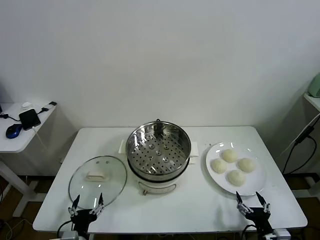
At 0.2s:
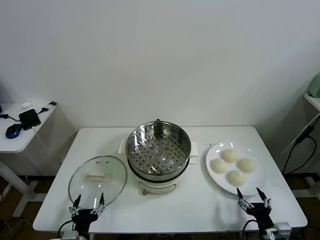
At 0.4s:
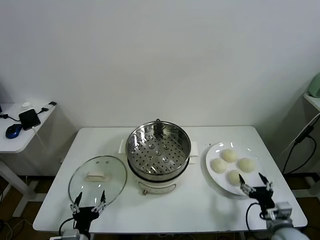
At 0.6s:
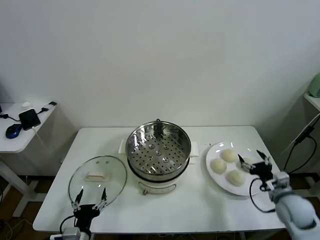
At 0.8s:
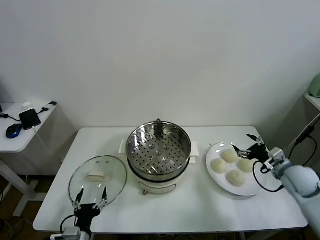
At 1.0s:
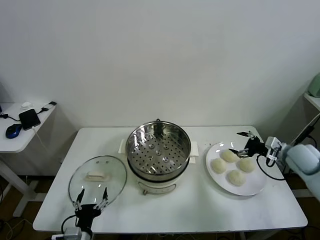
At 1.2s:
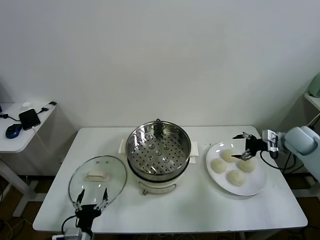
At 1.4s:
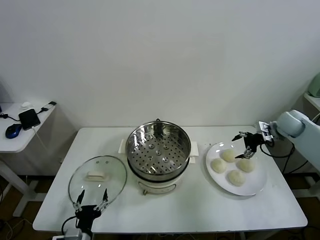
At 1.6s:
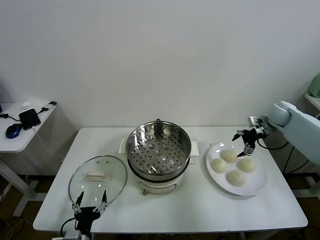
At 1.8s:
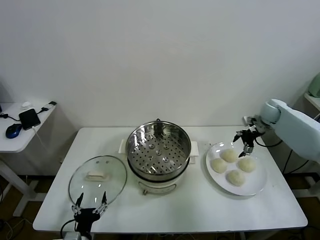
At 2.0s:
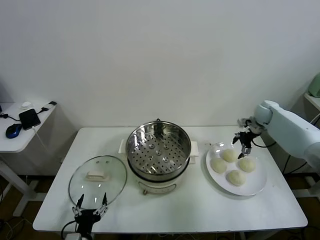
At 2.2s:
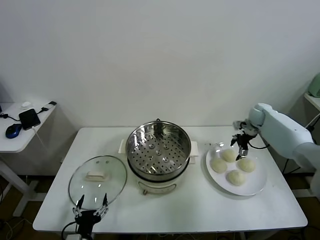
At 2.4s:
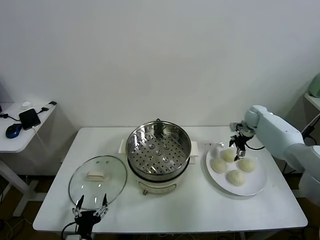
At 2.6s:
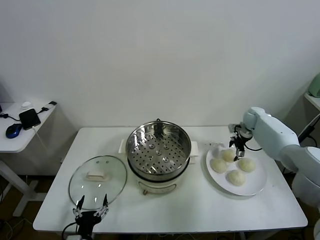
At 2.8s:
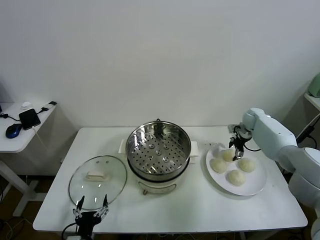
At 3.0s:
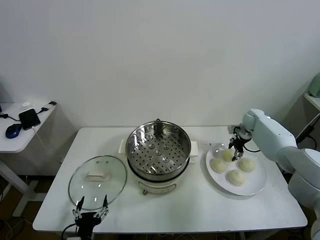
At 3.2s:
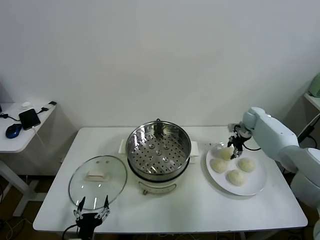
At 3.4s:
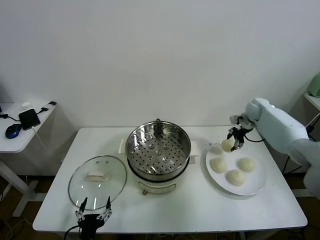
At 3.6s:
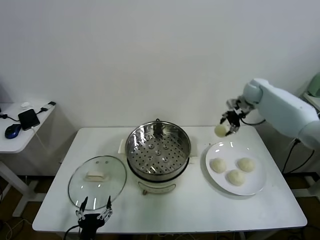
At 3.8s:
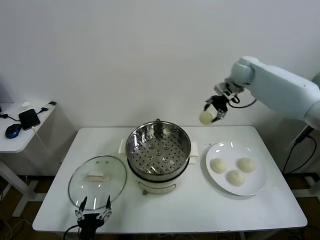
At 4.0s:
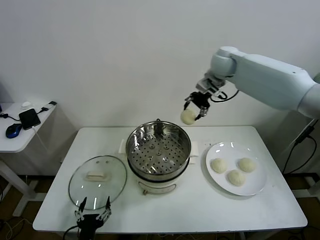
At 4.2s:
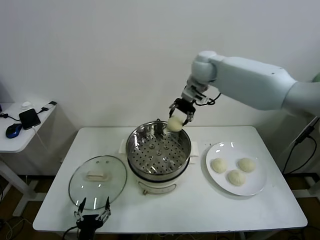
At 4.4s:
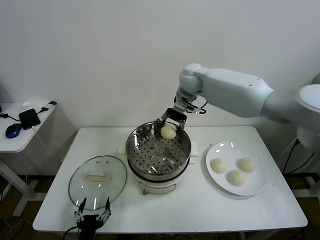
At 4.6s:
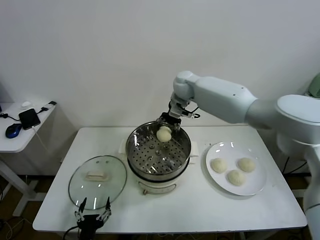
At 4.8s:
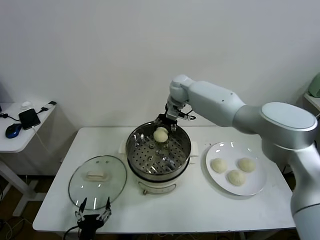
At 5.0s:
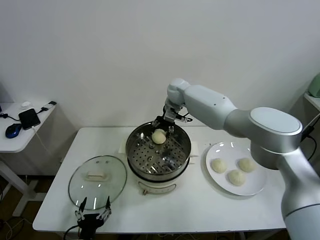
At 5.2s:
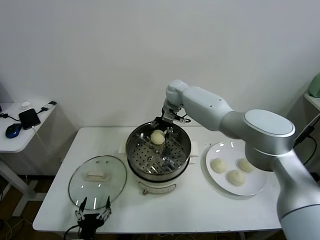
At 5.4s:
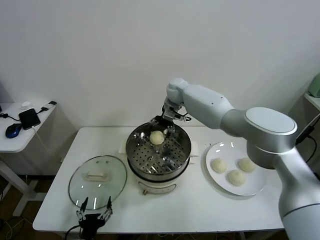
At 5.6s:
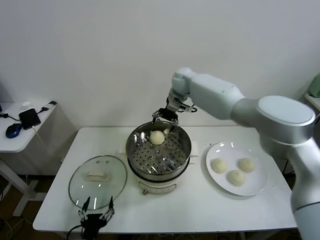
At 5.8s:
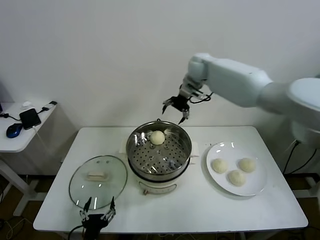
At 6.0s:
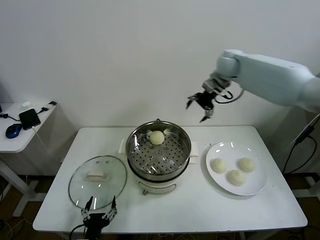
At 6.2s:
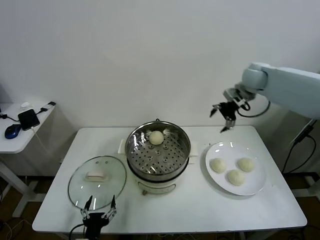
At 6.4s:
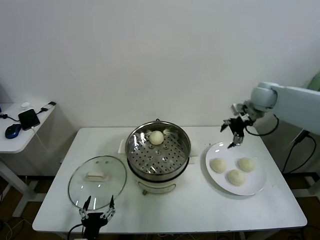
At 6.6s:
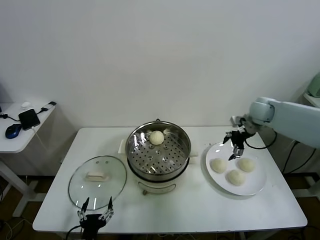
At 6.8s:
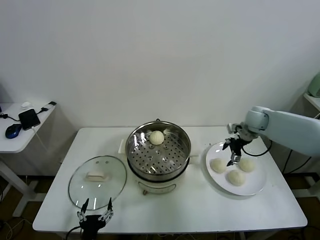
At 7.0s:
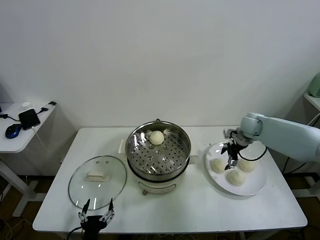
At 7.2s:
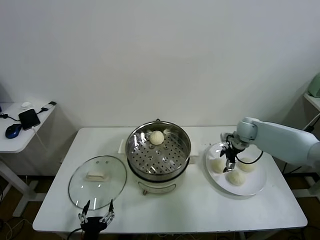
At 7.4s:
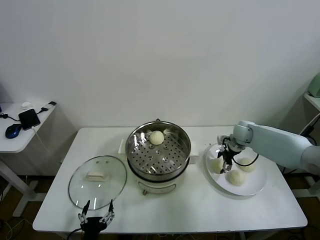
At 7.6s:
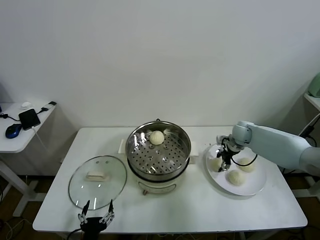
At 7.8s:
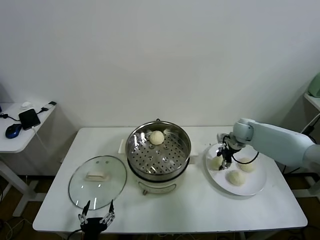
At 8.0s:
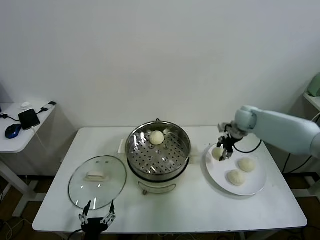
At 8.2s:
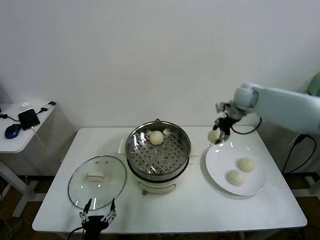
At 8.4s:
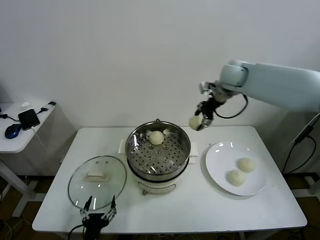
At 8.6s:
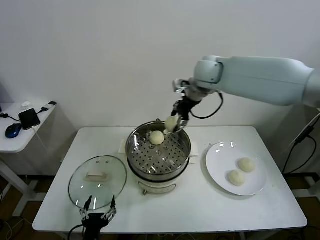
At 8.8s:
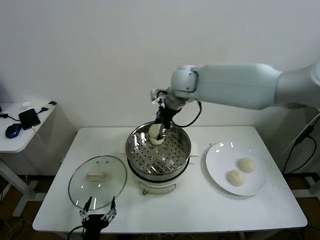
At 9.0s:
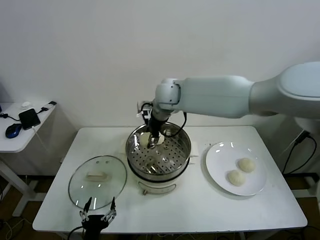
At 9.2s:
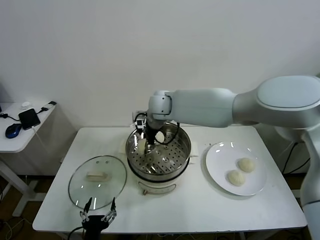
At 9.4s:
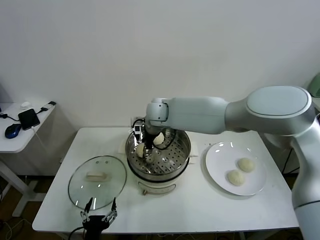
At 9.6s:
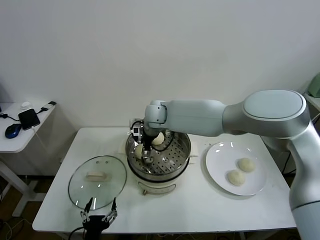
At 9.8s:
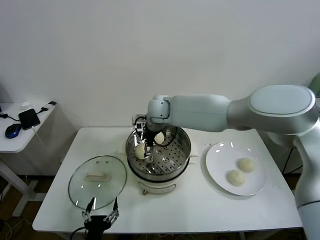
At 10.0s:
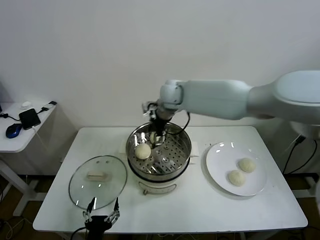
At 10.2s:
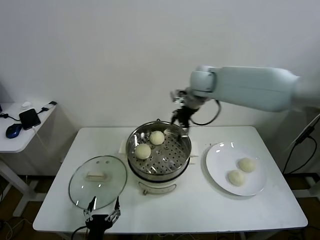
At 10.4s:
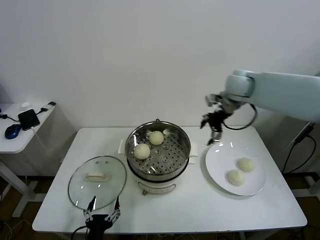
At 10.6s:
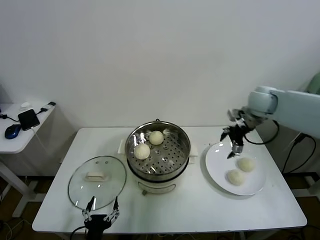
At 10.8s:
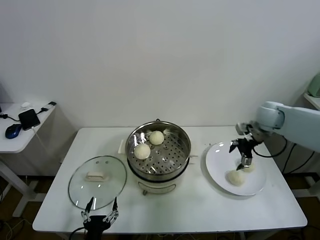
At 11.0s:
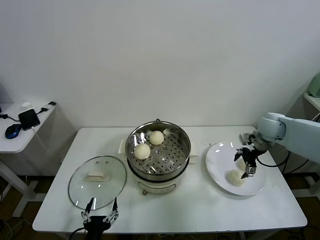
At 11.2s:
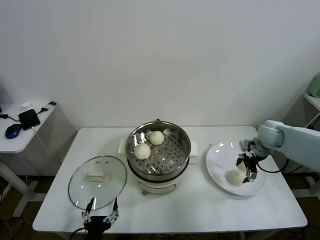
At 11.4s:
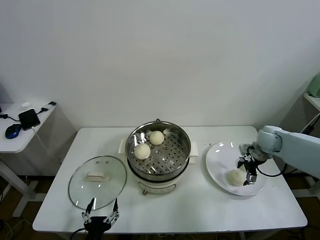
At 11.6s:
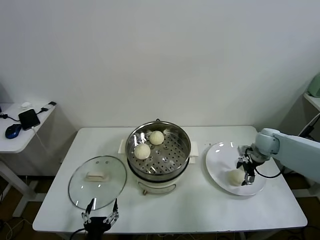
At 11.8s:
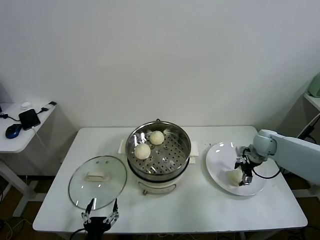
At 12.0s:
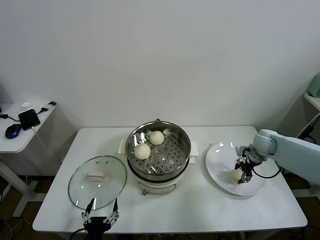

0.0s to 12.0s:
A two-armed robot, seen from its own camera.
Task of the whole recording: take steamed baozi put them in steamer.
Step, 0.0s to 3.0s: Grasp the baozi in the plate with right gripper.
Step, 3.2s to 5.4s: Place the baozi on the steamer with right gripper.
Step, 5.6s to 7.6s: Grasp the baozi in the plate with right gripper.
Step, 7.8s to 9.6s: Place the baozi on the steamer with right gripper.
Step, 9.8s to 11.8s: Grasp the baozi in the plate with right gripper.
1.6s to 3.0s: The right gripper heads downward, covering approximately 5 cm, and closes its fingers.
3.0s to 4.4s: The right gripper moves to the left and upward, about 35 cm.
4.4s to 6.0s: The right gripper goes some 20 cm to the right, and opens up.
6.0s to 7.6s: The right gripper is displaced downward by some 25 cm, and closes up.
7.6s to 9.0s: The right gripper is displaced to the left and upward by roughly 35 cm.
9.0s to 10.4s: The right gripper shifts some 30 cm to the right, and opens up.
10.4s to 12.0s: The right gripper goes approximately 20 cm downward and to the right, and closes.

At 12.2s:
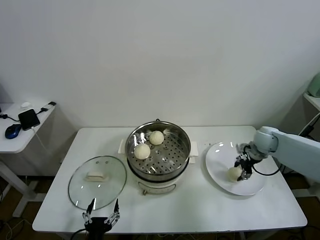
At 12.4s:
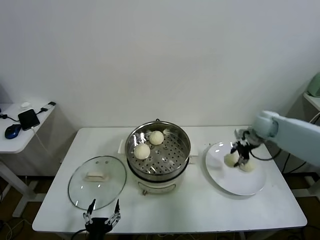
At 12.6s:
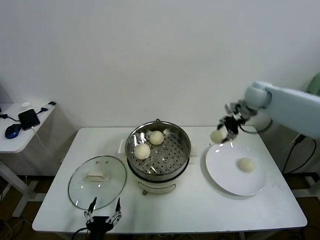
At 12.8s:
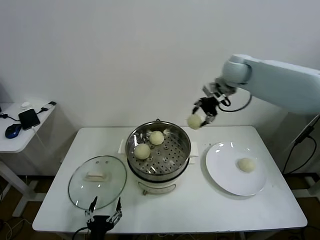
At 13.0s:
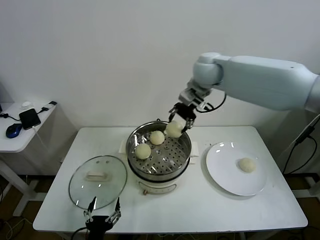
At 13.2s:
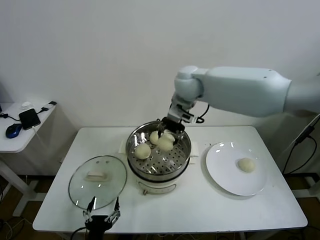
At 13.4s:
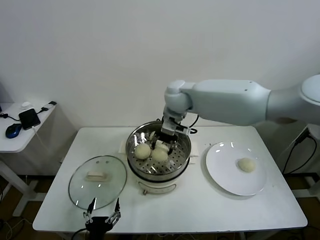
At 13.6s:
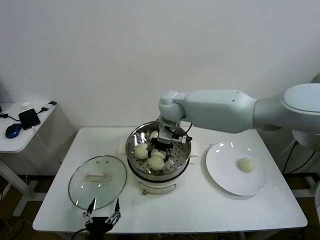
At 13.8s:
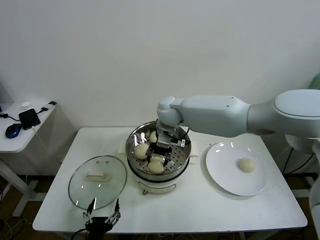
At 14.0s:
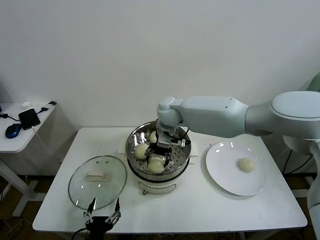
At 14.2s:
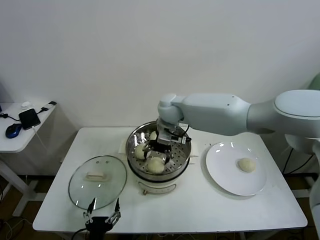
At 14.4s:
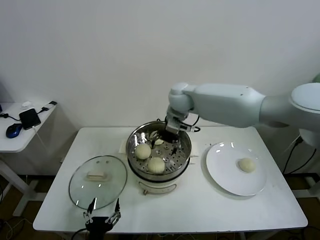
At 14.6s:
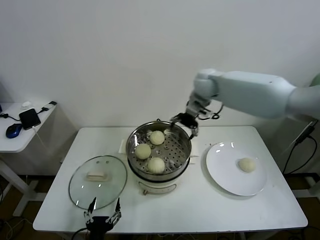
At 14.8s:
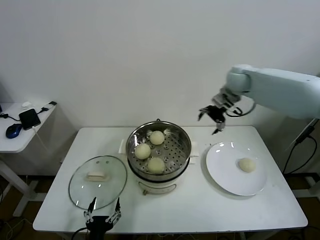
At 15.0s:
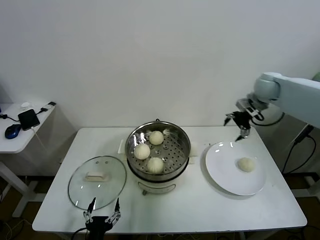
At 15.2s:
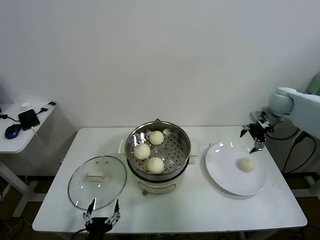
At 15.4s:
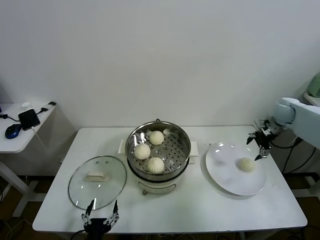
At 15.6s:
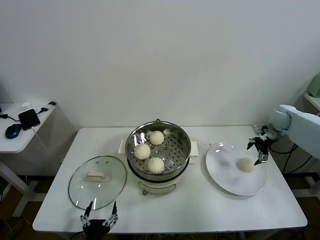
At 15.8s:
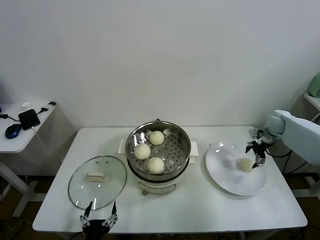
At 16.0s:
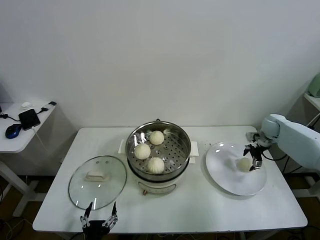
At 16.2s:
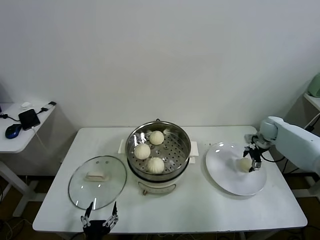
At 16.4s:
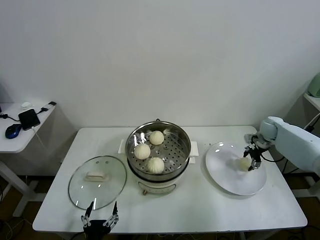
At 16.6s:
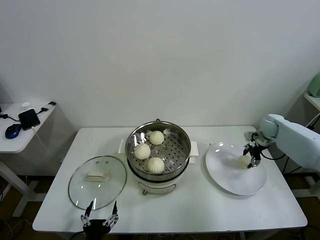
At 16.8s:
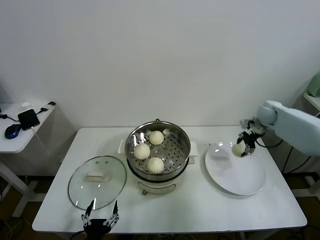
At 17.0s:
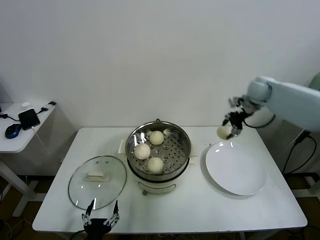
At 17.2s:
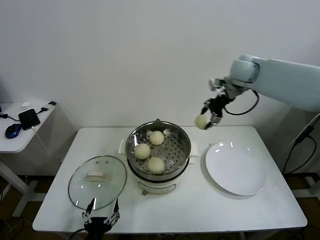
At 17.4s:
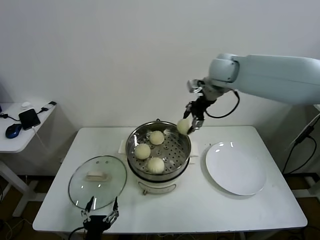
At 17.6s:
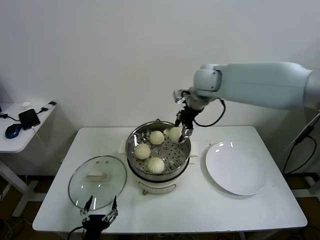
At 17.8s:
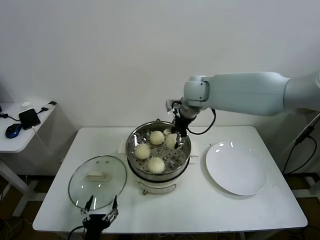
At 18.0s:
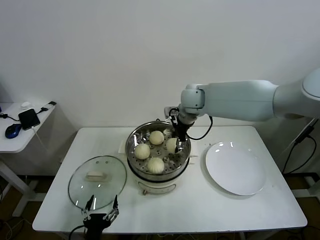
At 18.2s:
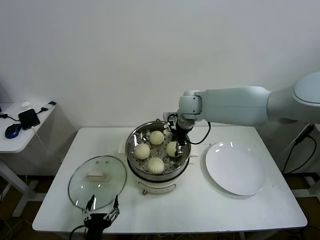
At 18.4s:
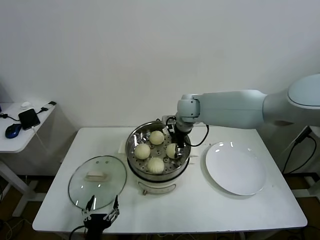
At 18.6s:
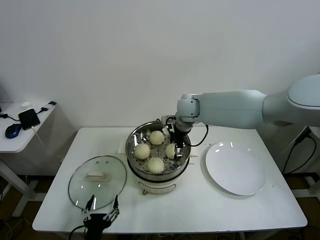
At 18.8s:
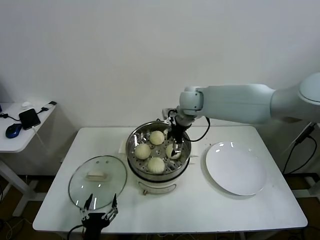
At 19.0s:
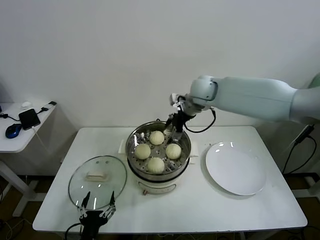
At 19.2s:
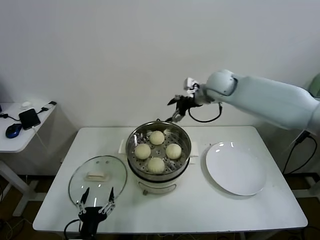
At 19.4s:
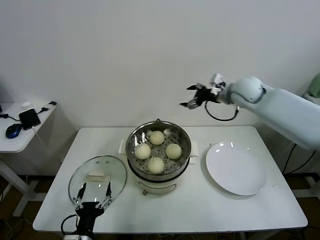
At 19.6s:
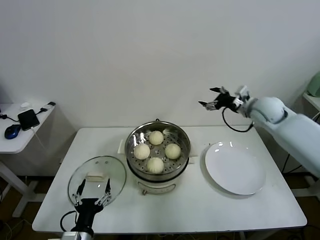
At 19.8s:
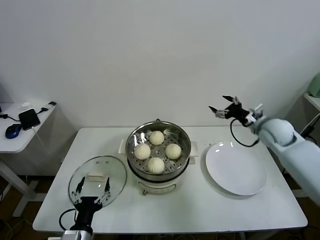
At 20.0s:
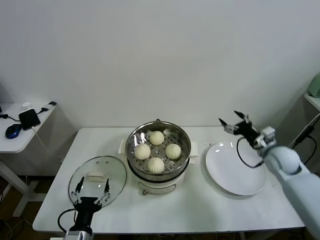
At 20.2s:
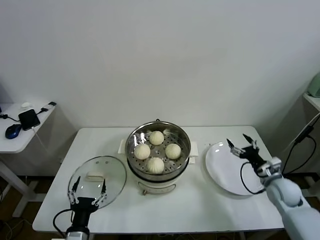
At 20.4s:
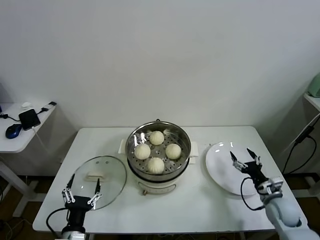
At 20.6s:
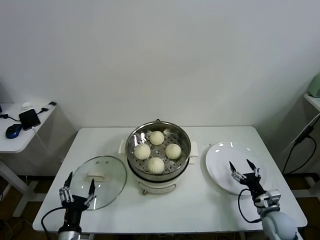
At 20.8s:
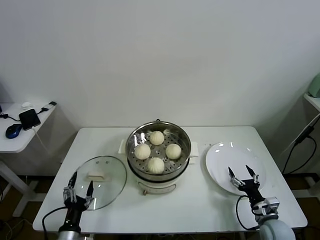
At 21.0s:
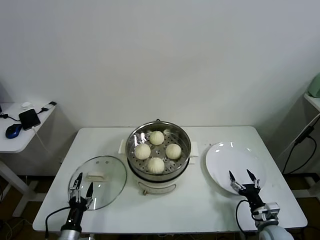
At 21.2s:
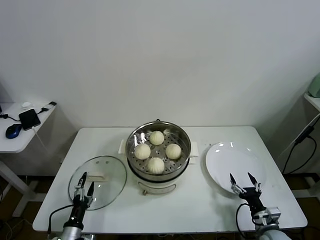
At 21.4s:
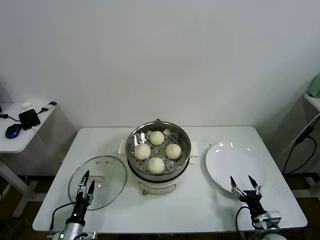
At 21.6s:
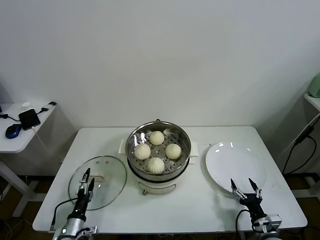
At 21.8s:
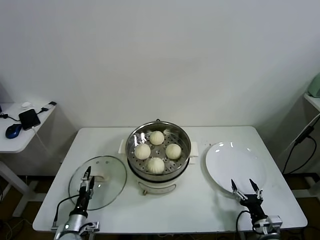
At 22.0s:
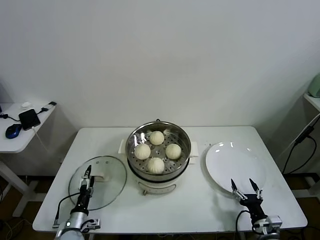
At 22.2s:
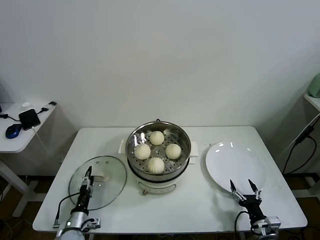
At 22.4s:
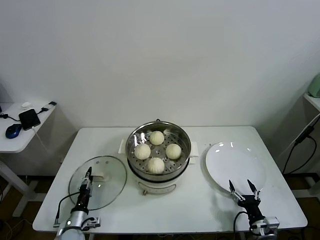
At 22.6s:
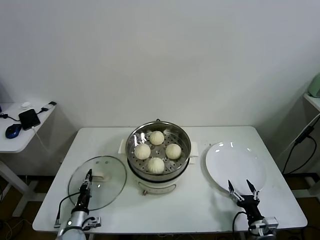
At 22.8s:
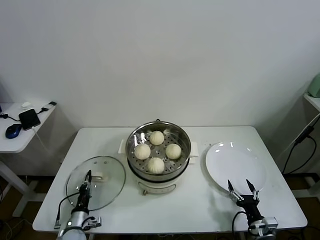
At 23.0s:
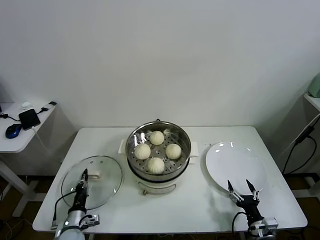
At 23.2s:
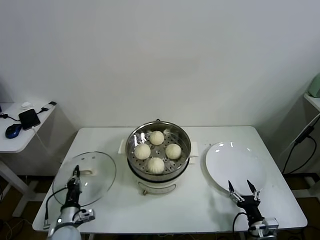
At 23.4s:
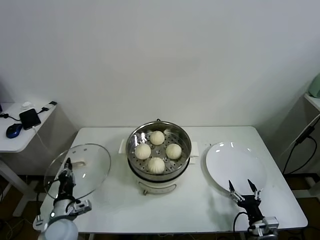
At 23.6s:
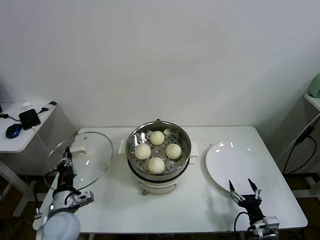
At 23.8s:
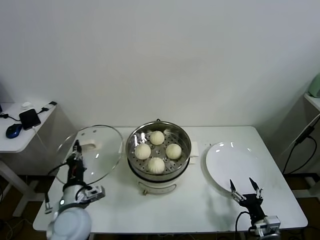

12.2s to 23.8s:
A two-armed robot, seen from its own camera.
Task of the whole recording: take steamed baozi put them in steamer.
Step, 12.2s to 14.2s: Place the baozi on the steamer with right gripper.
Step, 14.4s to 16.4s: Grasp the baozi in the plate with right gripper.
Step, 16.6s to 18.6s: Place the baozi on the steamer with right gripper.
Step, 18.8s to 22.6s: Grasp the pot lid with left gripper.
12.2s to 13.6s: The right gripper heads to the left, covering roughly 35 cm.
13.6s to 15.0s: The right gripper is displaced to the right by roughly 35 cm, and opens up.
15.0s to 16.6s: The right gripper moves downward, roughly 15 cm, and closes its fingers.
16.6s to 18.0s: The right gripper shifts some 35 cm to the left and upward.
18.0s to 19.4s: The right gripper travels to the right by roughly 20 cm, and opens.
19.4s to 21.0s: The right gripper shifts about 50 cm downward and backward, while the left gripper moves to the left and downward, approximately 10 cm.
21.0s to 22.4s: The left gripper shifts about 10 cm forward and downward, and closes up.
22.4s to 23.8s: The left gripper shifts roughly 20 cm upward, and closes.
